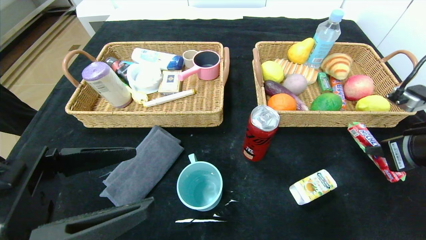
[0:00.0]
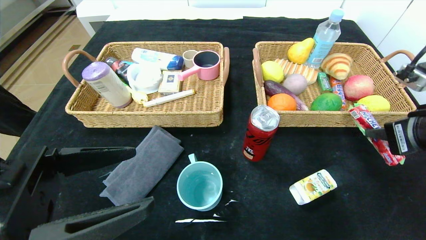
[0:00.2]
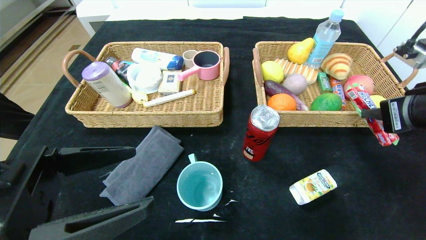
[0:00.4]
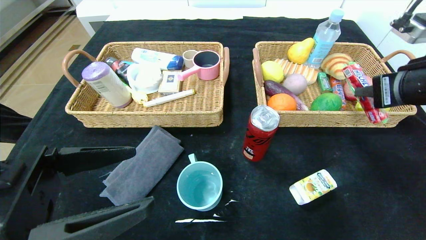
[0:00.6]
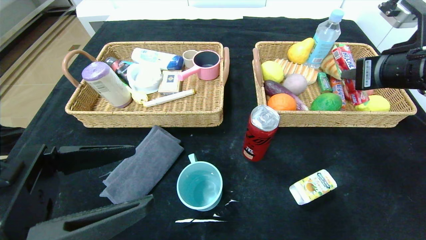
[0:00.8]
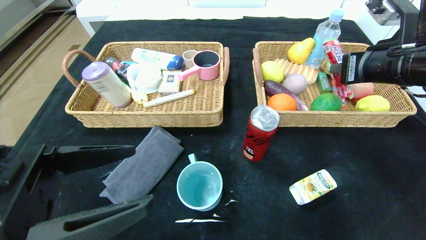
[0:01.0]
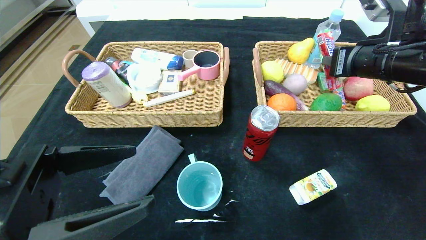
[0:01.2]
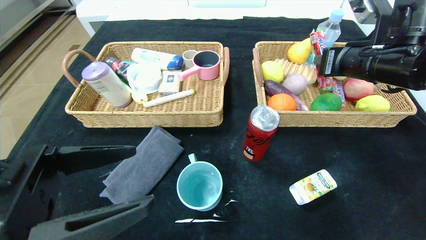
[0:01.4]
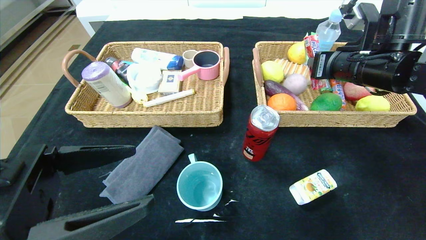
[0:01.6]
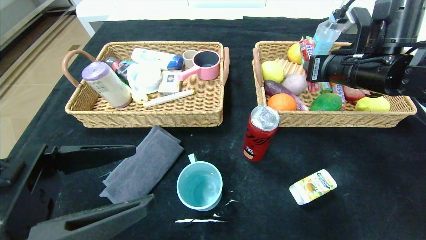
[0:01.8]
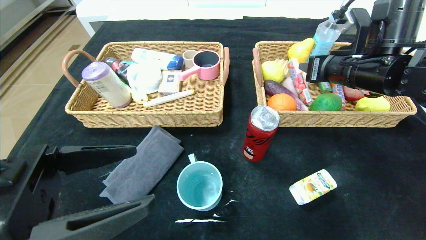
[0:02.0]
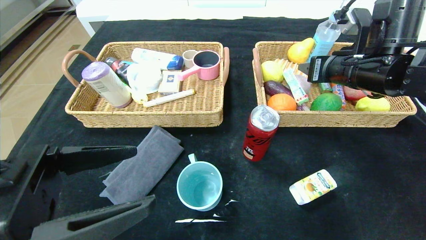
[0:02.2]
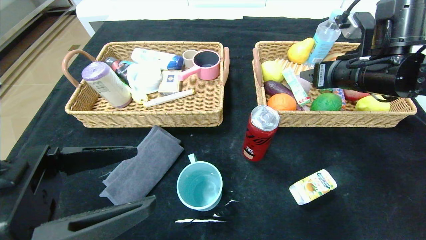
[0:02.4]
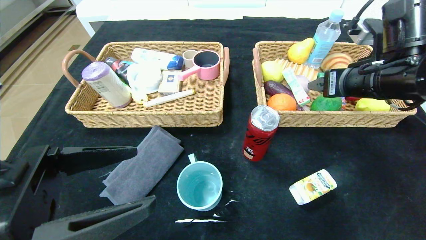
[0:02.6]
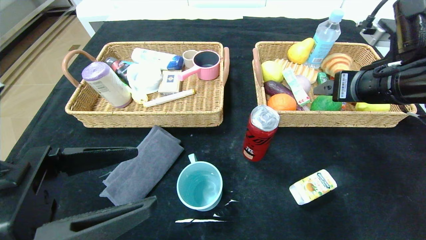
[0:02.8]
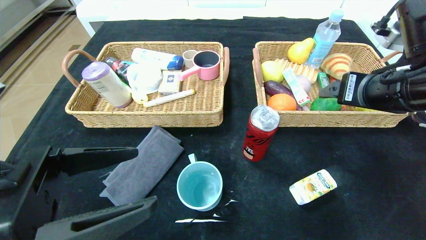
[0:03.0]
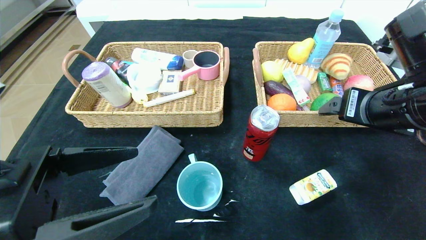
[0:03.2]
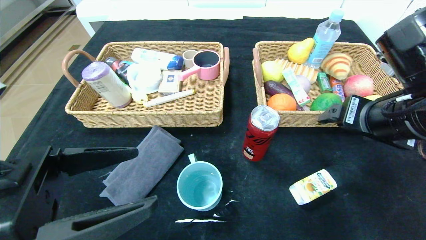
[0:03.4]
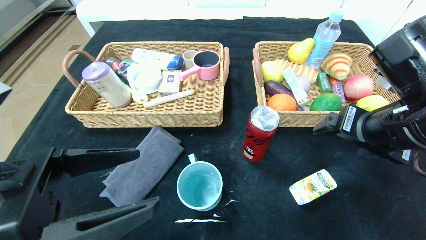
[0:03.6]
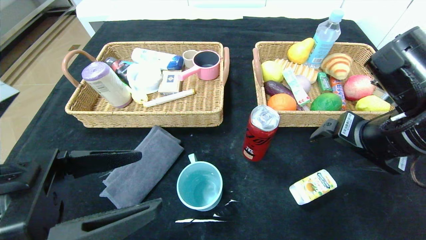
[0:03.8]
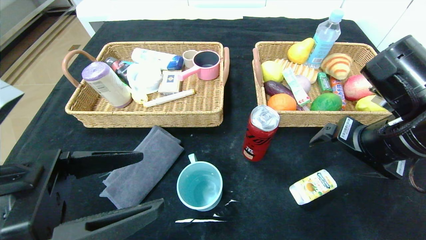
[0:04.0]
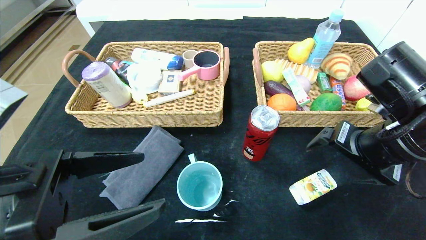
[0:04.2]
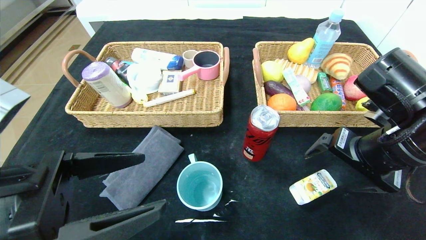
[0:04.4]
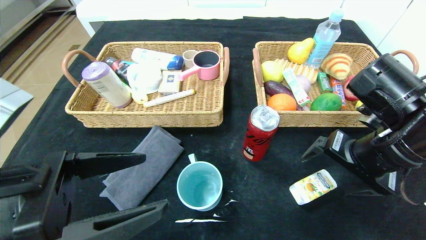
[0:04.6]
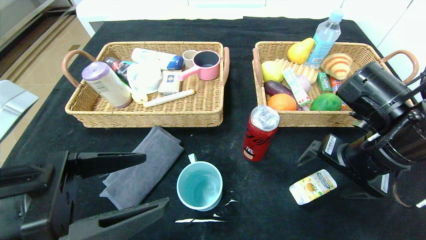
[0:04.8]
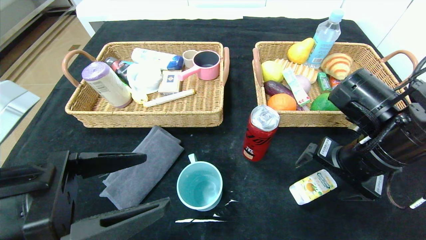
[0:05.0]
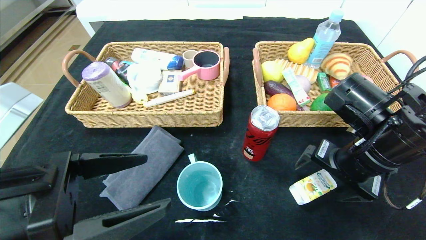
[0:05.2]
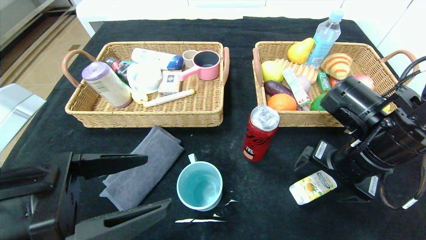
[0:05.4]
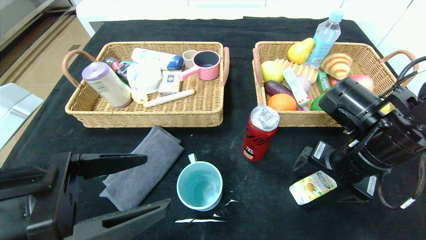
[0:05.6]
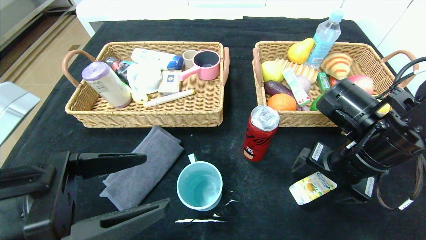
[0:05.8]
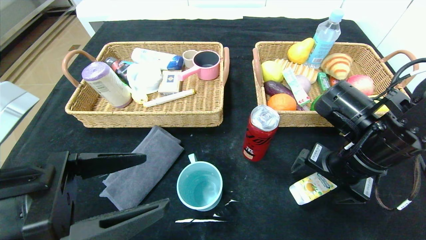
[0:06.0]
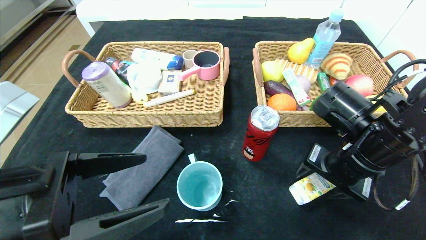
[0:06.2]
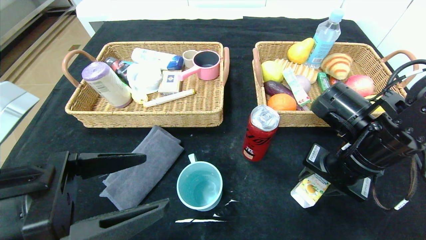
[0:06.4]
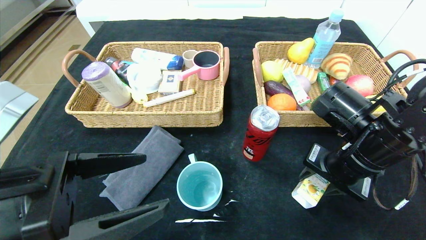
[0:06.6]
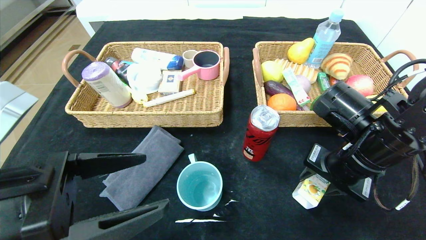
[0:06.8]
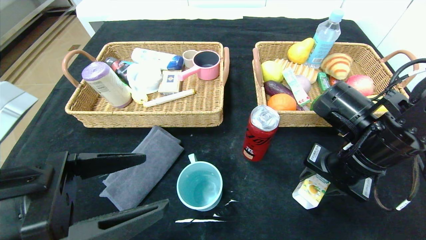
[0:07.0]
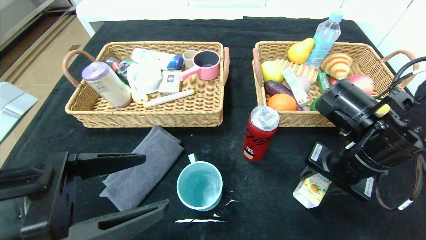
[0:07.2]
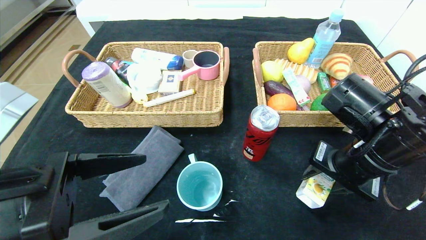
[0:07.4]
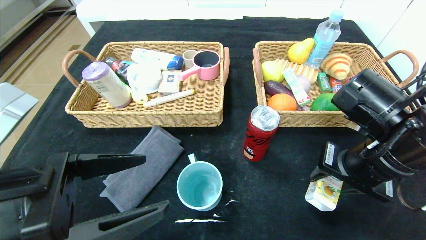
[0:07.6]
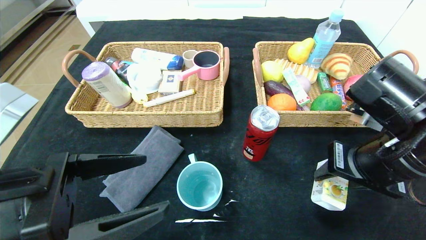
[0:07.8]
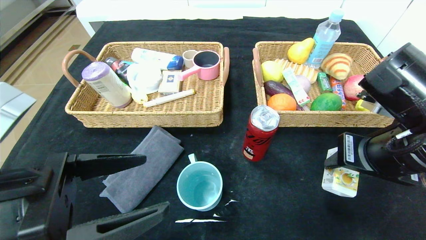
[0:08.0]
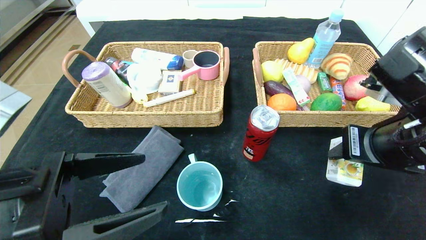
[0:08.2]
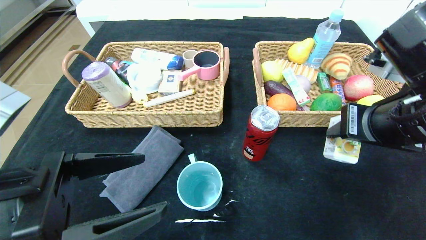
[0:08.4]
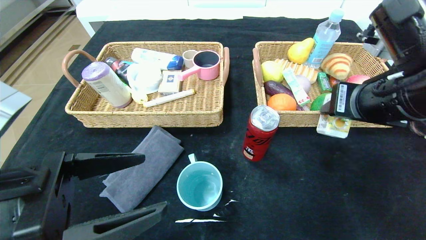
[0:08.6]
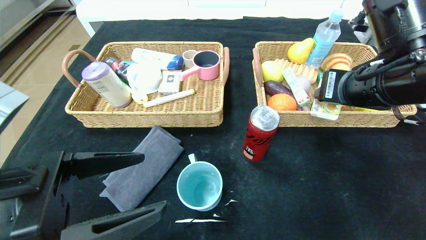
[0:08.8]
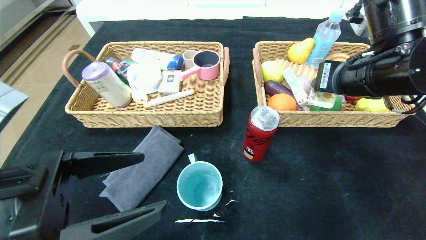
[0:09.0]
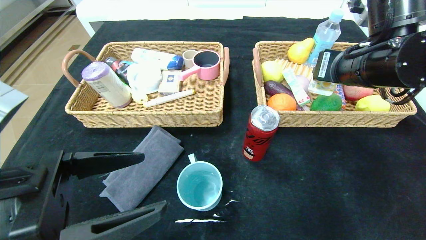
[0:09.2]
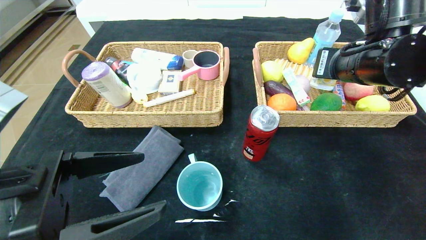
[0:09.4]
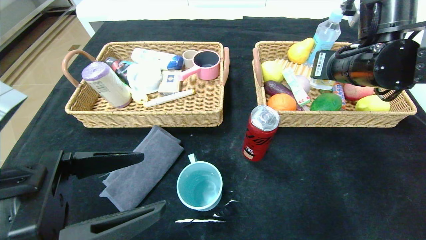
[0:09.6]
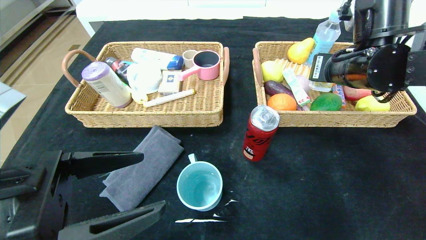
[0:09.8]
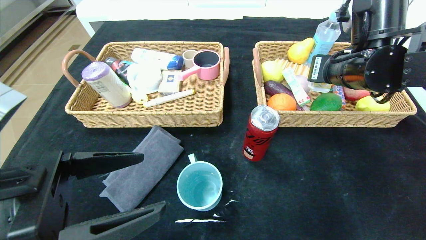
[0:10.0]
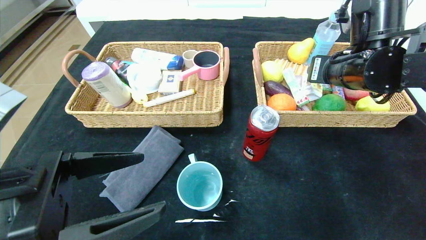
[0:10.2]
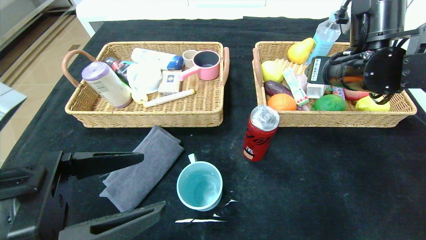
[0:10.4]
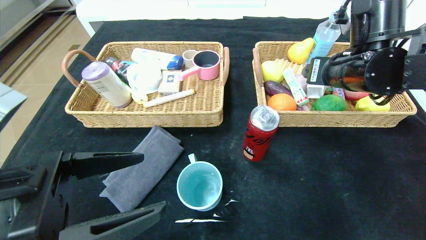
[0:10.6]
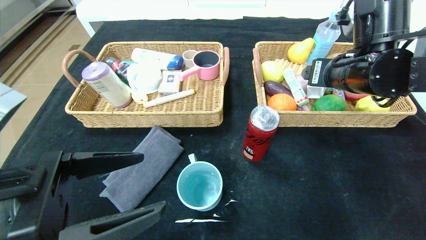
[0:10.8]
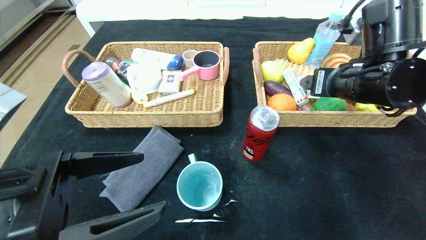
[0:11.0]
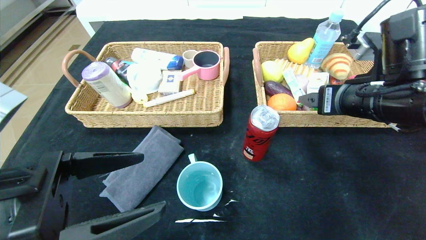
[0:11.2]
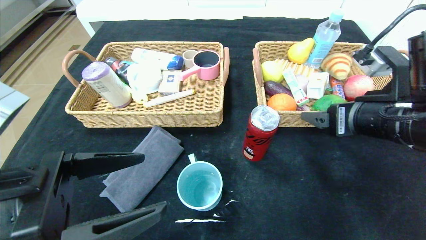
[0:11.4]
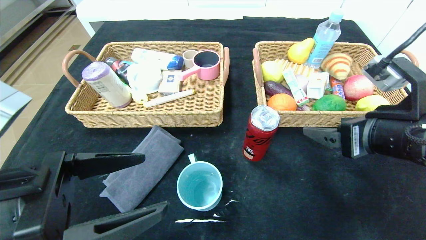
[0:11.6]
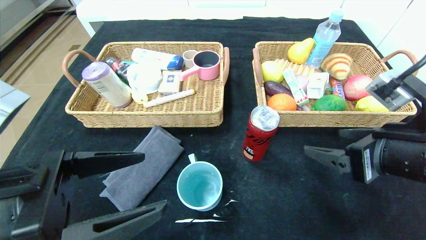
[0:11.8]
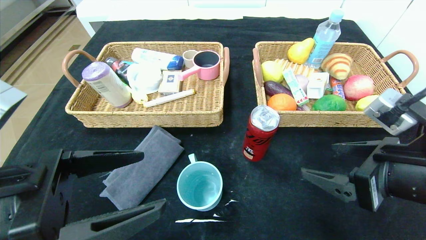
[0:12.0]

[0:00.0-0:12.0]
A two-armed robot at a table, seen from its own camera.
Step, 0:00.0 to 0:03.2: Grasp the fruit fudge and put it in the right basket.
0:00.0 to 0:01.6: The right gripper moves forward, to the left and upward, approximately 15 cm.
0:01.6 to 0:03.0: The right gripper moves backward, some 10 cm, and opens.
0:03.0 to 0:04.4: The right gripper travels downward by some 5 cm.
0:04.4 to 0:06.0: The right gripper moves approximately 5 cm.
0:06.0 to 0:07.6: The right gripper closes its fingers.
0:07.6 to 0:09.0: The right gripper shifts about 10 cm upward and forward.
0:09.0 to 0:10.4: The right gripper opens.
0:10.4 to 0:12.0: The right gripper shifts some 15 cm backward and downward.

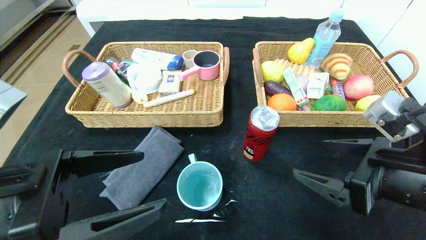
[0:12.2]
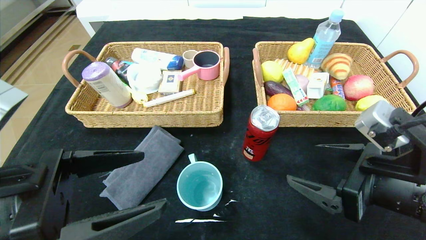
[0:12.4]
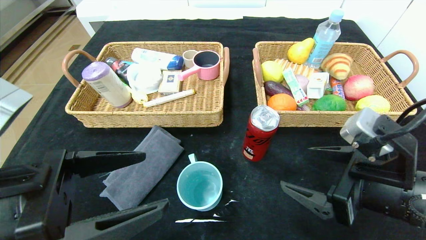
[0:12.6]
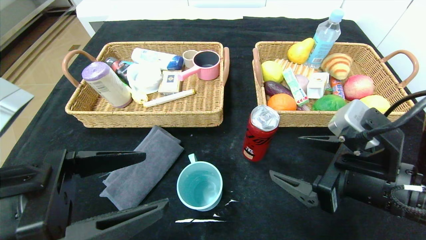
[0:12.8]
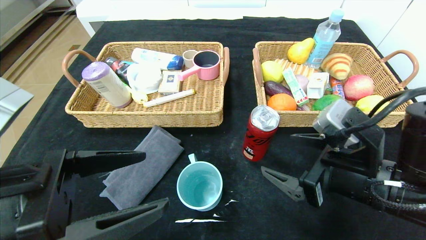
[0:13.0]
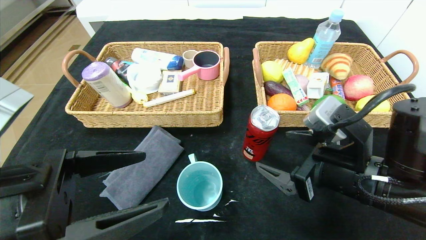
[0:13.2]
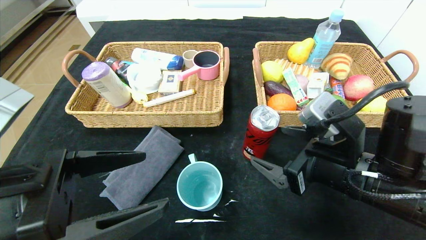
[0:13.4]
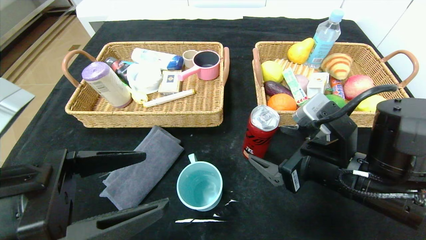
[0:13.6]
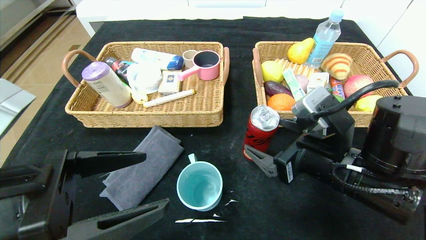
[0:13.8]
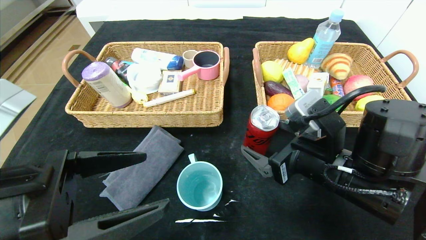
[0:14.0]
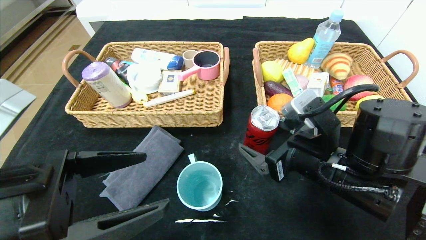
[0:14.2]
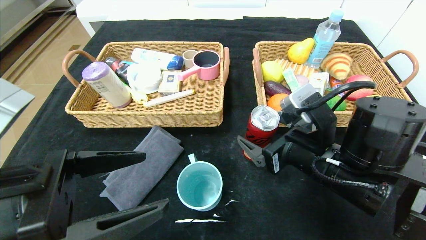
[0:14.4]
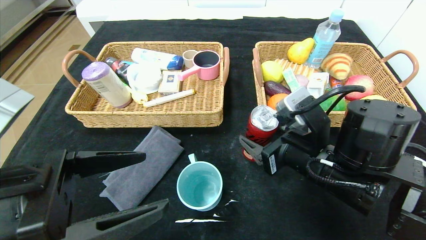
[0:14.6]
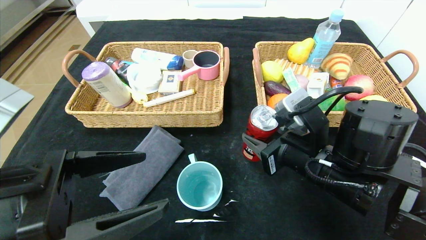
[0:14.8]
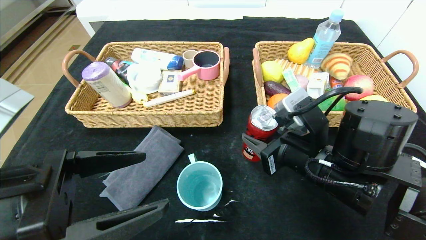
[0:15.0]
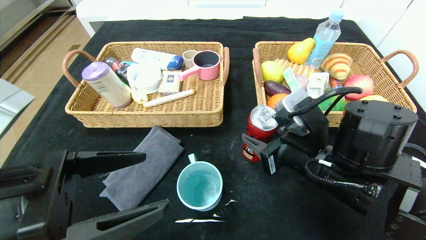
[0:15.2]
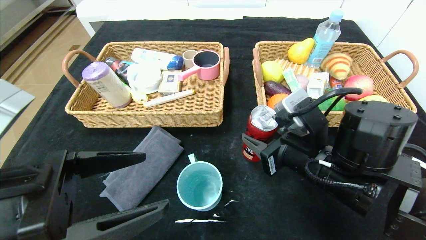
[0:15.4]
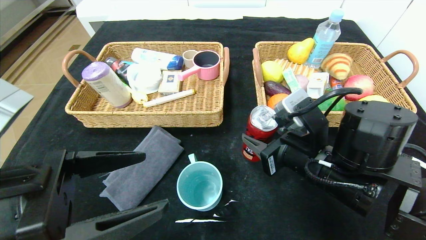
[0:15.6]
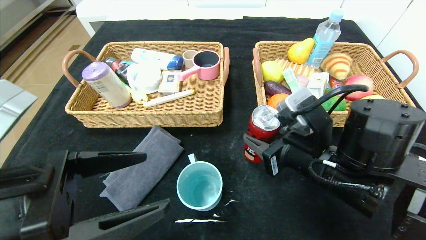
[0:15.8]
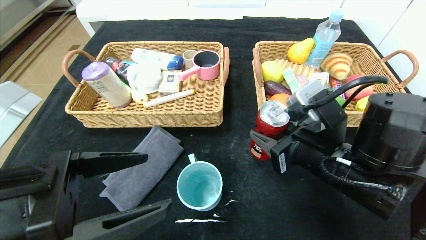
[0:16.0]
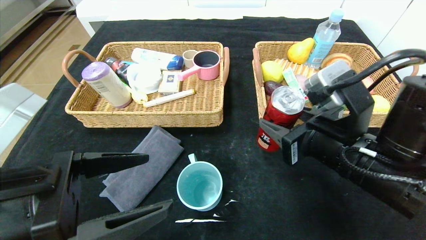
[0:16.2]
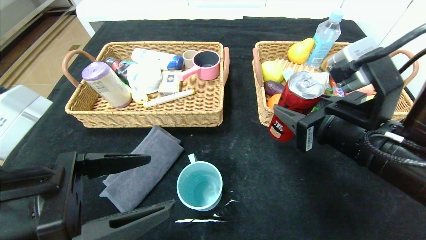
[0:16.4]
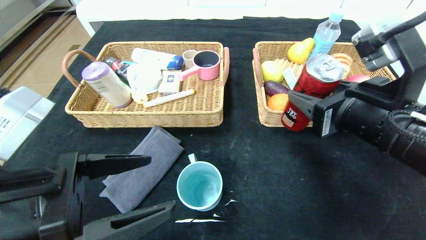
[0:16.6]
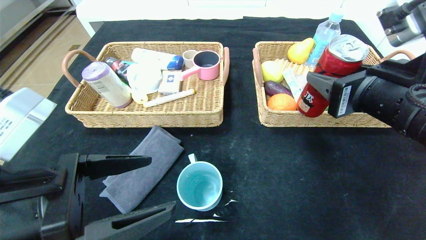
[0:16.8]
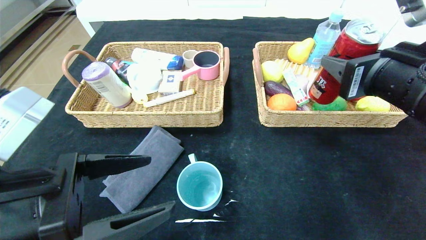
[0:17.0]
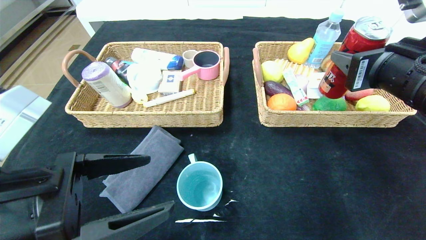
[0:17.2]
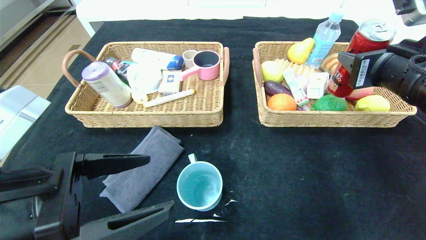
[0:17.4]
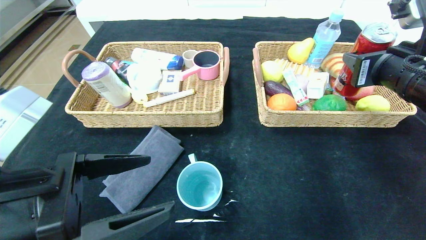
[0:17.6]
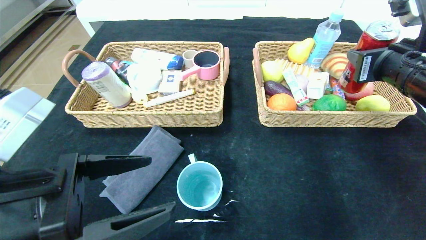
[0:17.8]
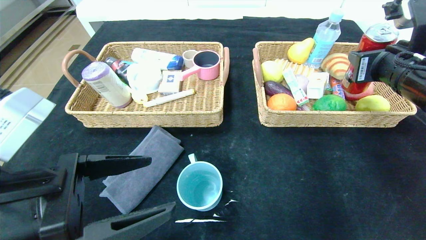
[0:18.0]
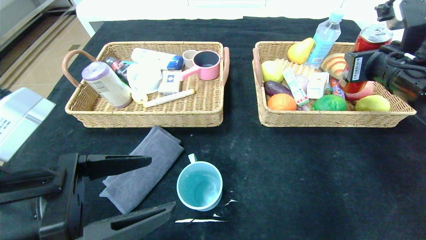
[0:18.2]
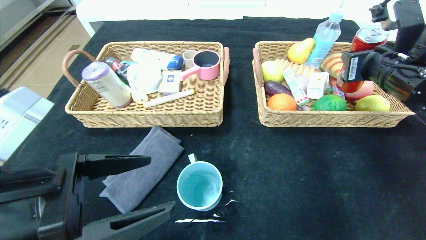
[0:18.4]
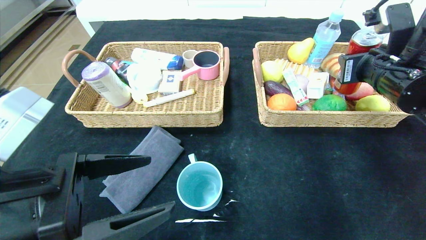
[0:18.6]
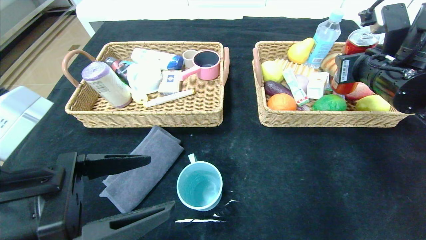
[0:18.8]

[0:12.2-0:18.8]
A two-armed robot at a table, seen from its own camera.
0:12.2 to 0:13.8: The right gripper moves to the left, about 5 cm.
0:13.8 to 0:15.4: The right gripper closes.
0:15.4 to 0:17.2: The right gripper shifts roughly 15 cm upward and to the right.
0:17.2 to 0:18.8: The right gripper heads forward, covering about 10 cm.
